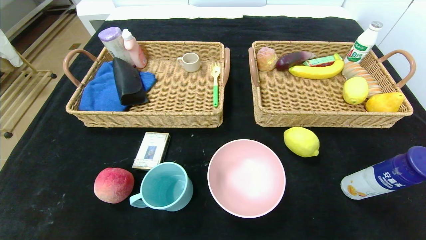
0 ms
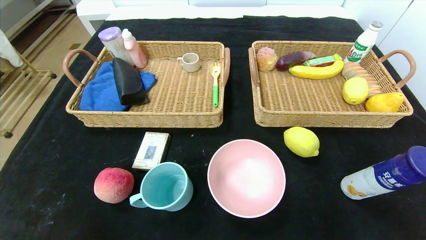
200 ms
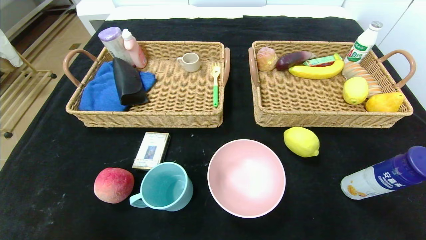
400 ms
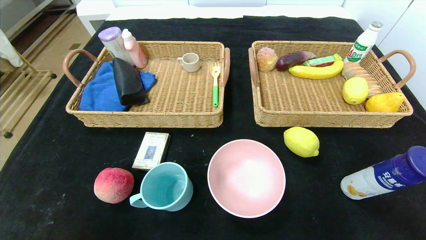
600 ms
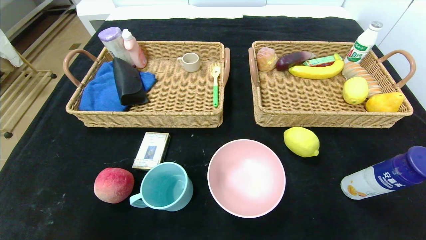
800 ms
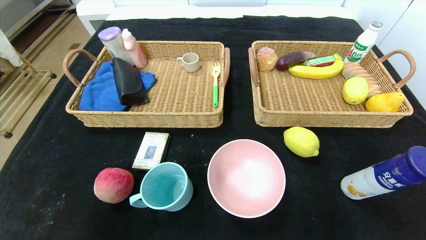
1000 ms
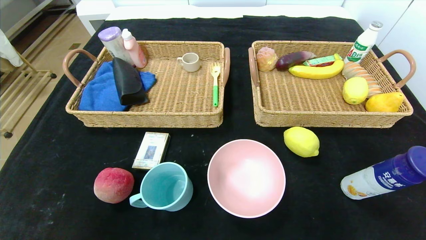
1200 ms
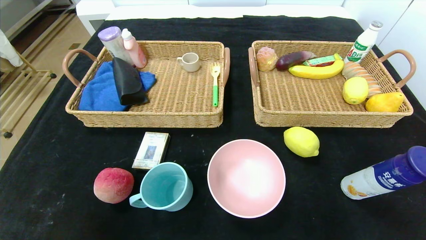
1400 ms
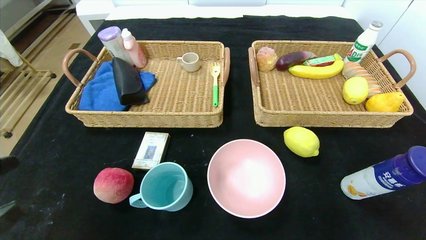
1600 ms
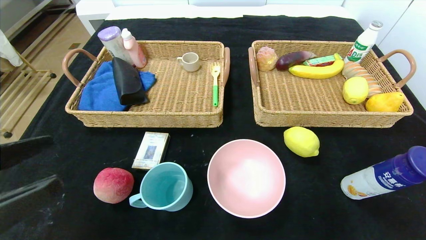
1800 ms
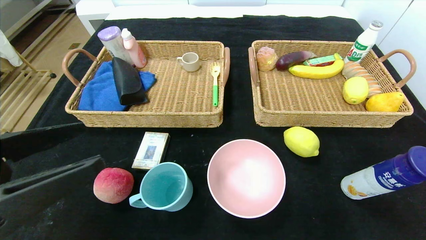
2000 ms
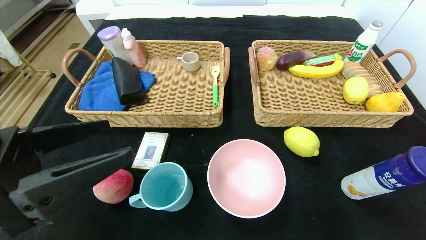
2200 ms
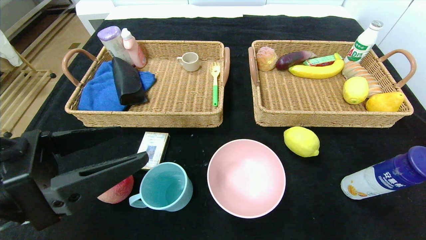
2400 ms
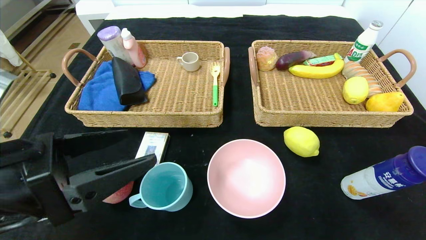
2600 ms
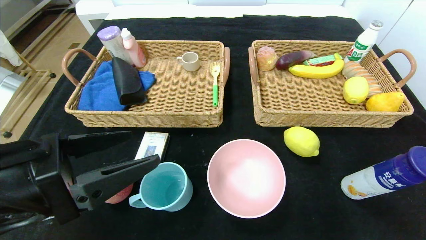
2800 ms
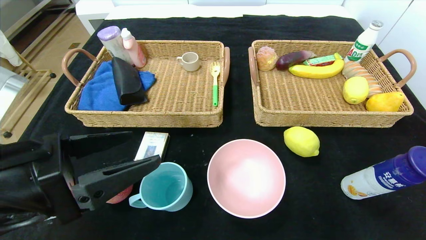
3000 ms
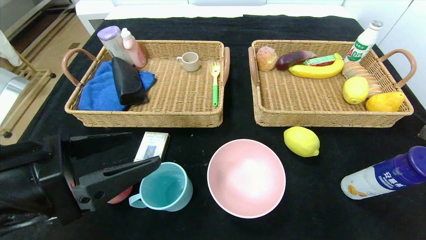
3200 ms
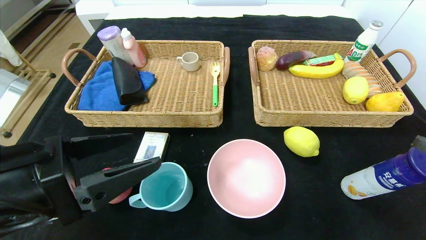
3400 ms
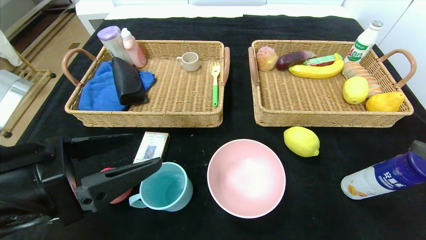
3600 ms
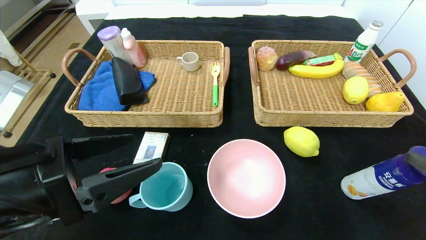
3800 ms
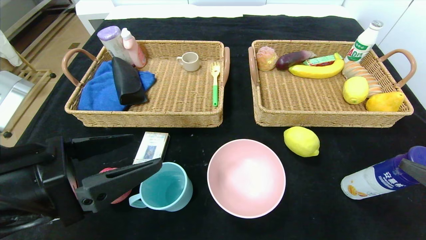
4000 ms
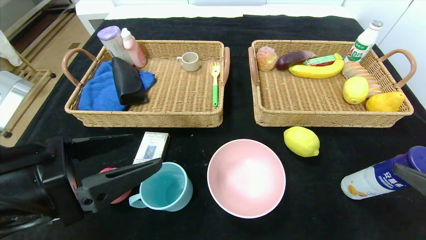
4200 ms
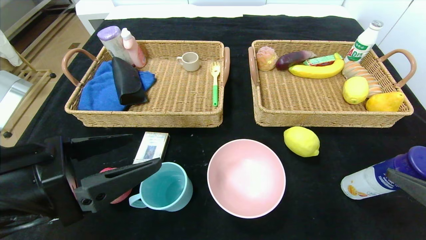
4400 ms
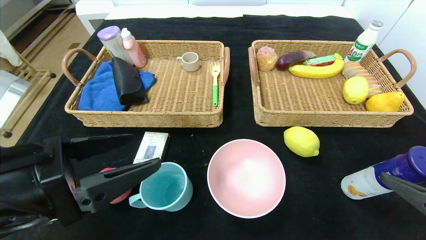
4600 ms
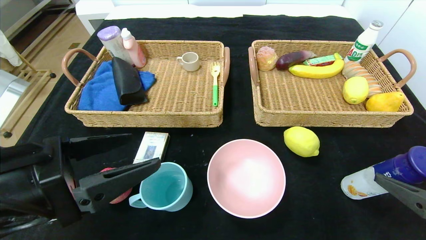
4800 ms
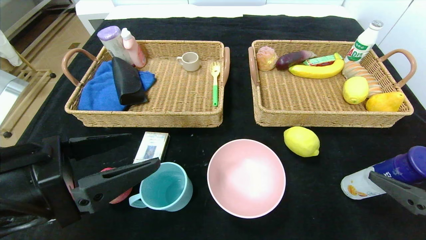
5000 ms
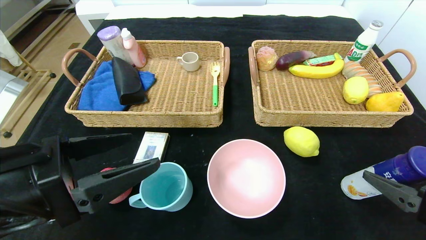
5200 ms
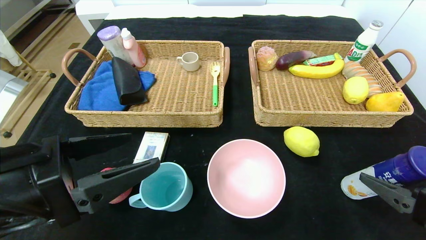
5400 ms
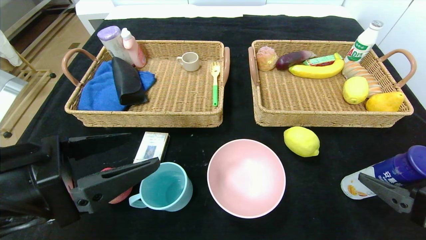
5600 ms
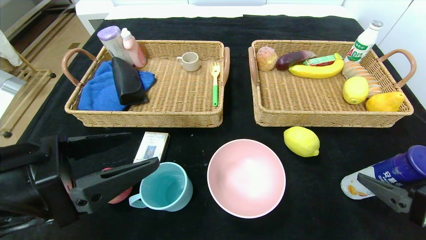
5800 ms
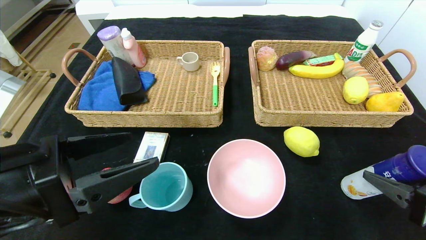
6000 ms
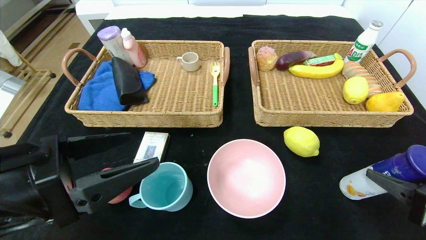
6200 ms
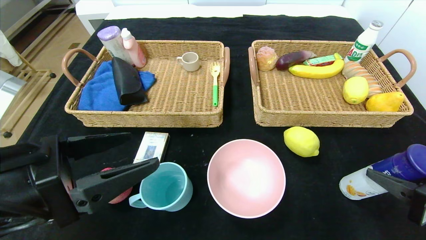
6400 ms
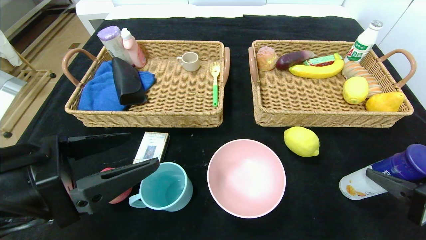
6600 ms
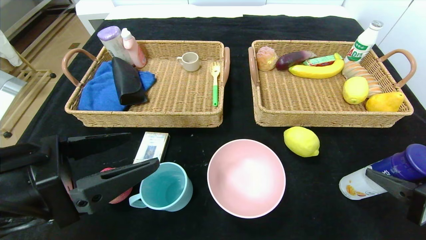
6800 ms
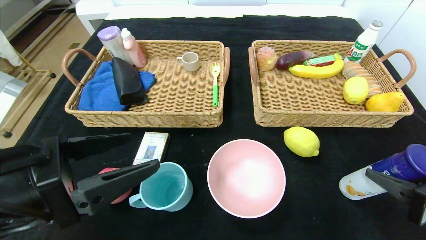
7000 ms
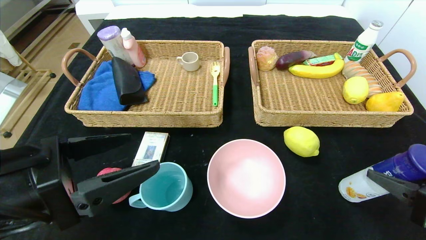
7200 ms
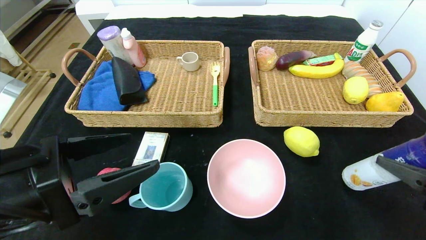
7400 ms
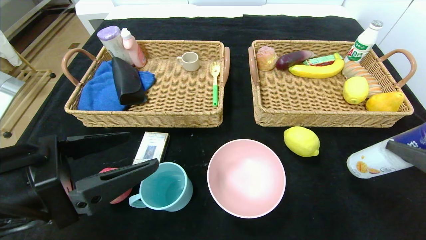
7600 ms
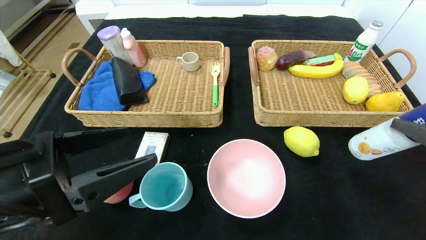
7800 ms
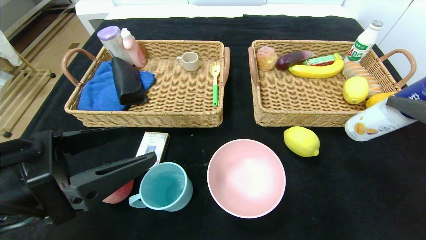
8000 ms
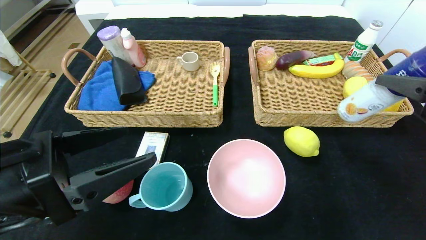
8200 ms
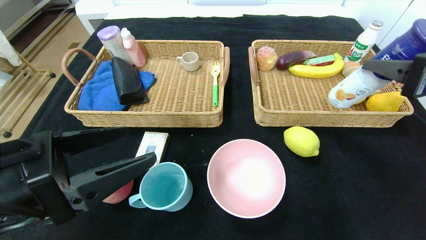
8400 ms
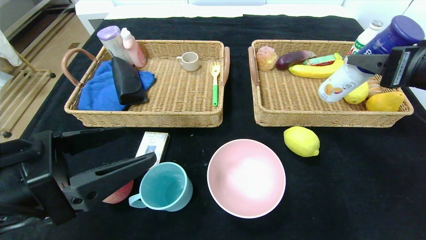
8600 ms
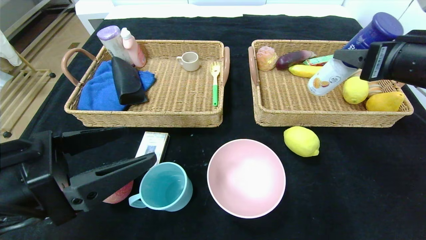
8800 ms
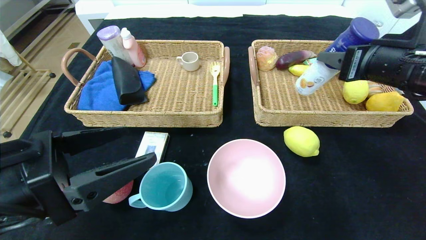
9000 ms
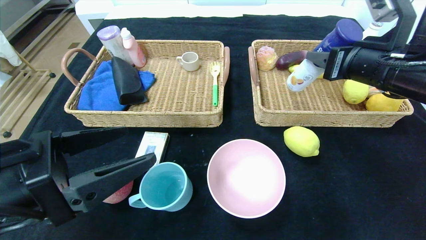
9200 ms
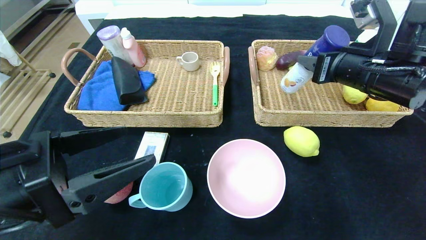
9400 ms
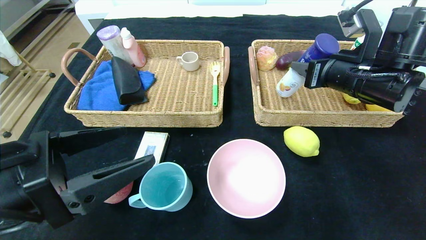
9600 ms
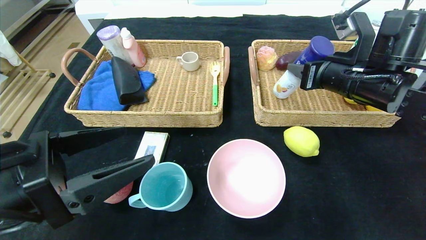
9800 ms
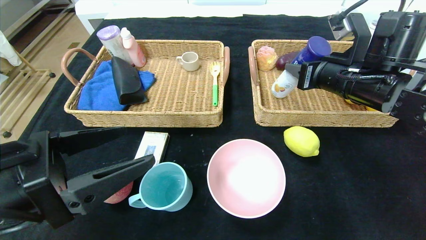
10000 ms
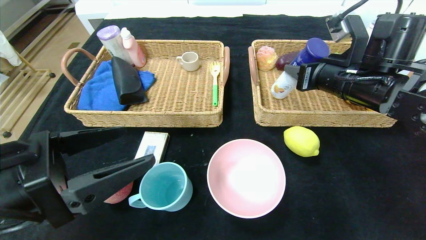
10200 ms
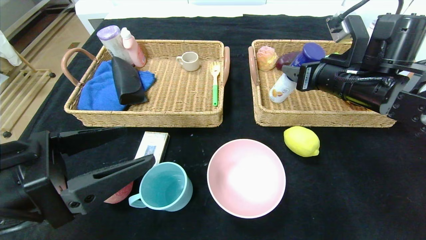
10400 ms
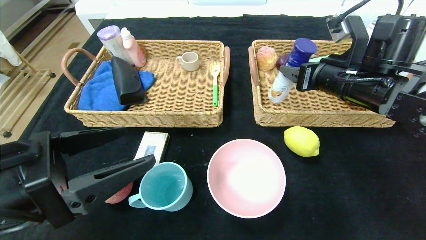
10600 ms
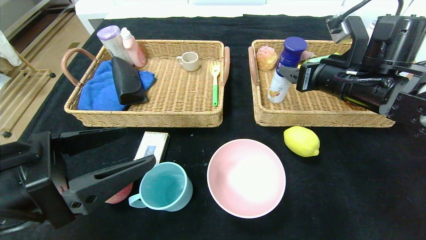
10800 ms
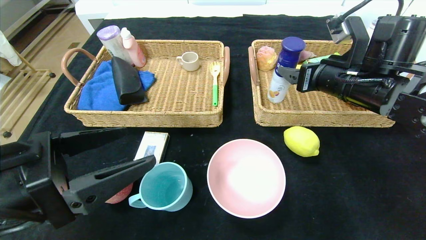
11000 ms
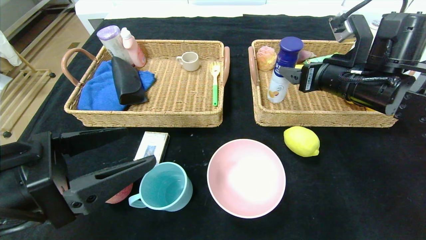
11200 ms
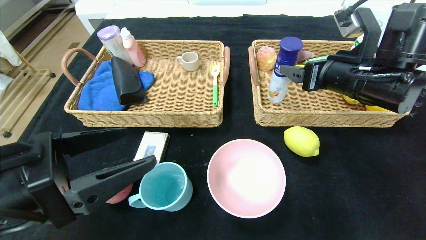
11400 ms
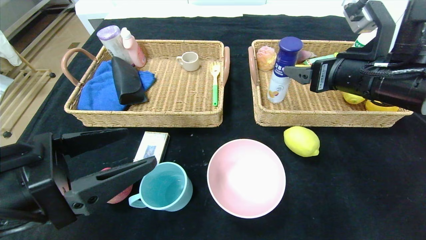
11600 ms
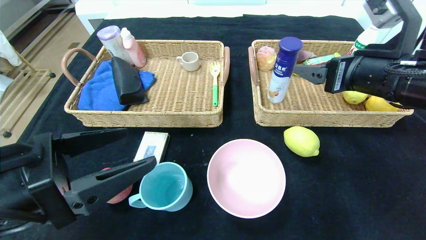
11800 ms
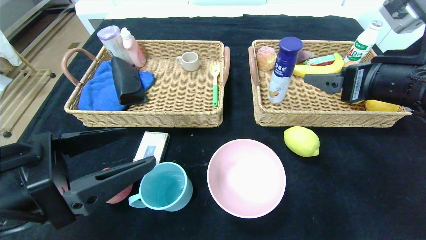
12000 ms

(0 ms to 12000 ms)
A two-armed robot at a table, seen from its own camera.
0 ms - 1600 ms: The left gripper goes some 20 cm upward.
1600 ms - 3000 ms: The right gripper moves forward, roughly 5 cm. The left gripper travels forward and to the right by some 10 cm.
3000 ms - 4400 ms: The right gripper travels downward by approximately 5 cm.
4400 ms - 6000 ms: The right gripper closes up.
6000 ms - 7600 ms: The right gripper heads upward, covering approximately 5 cm.
7600 ms - 9000 ms: The right gripper shifts about 20 cm forward, upward and to the left.
9000 ms - 10400 ms: The right gripper is displaced forward by roughly 5 cm, and opens up.
10400 ms - 12000 ms: The right gripper travels backward by roughly 10 cm, and opens up.

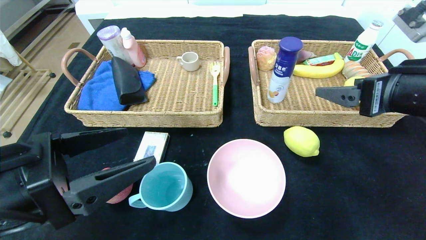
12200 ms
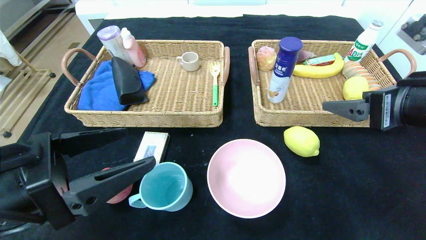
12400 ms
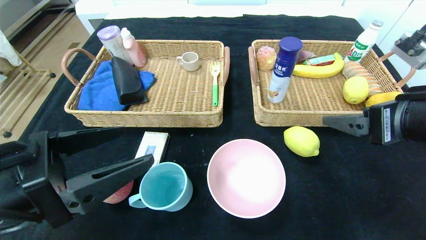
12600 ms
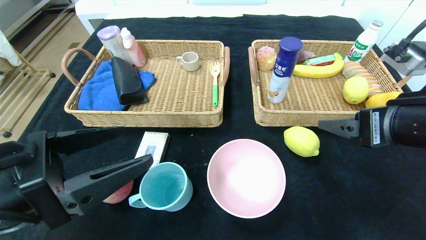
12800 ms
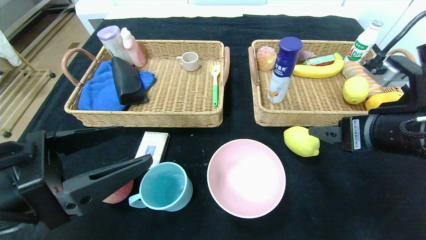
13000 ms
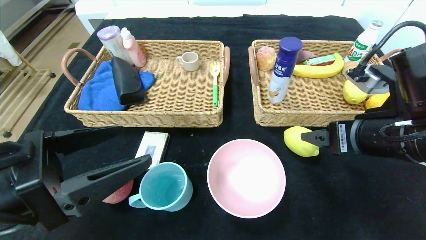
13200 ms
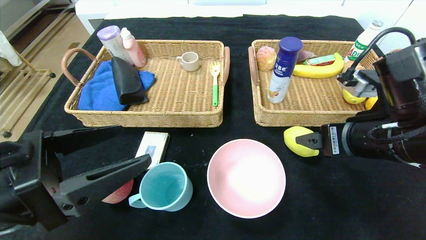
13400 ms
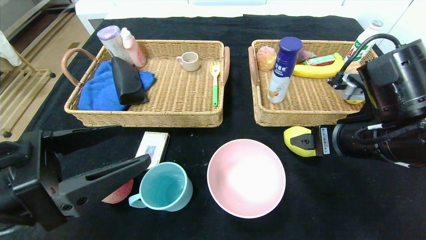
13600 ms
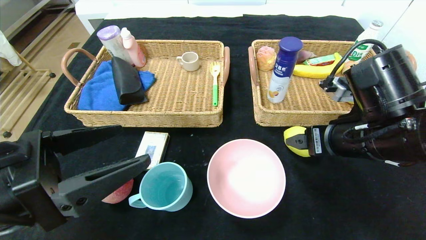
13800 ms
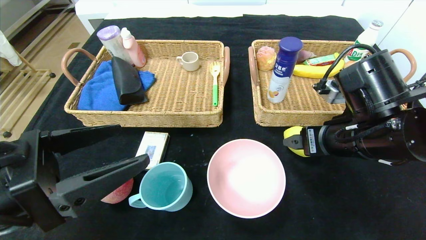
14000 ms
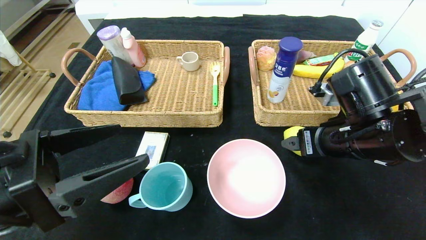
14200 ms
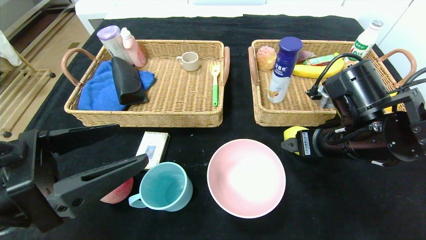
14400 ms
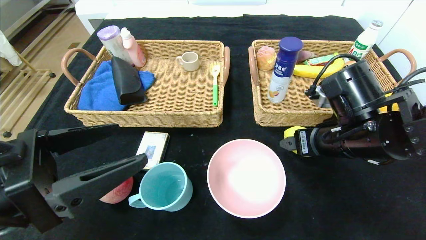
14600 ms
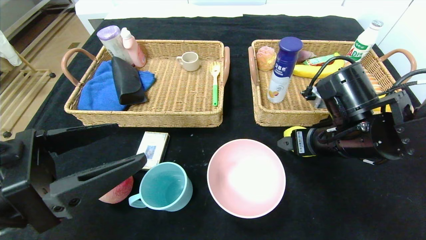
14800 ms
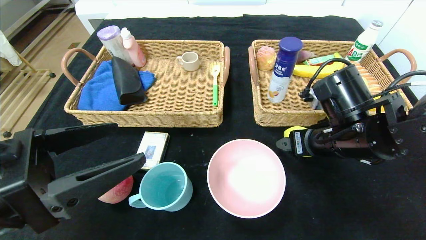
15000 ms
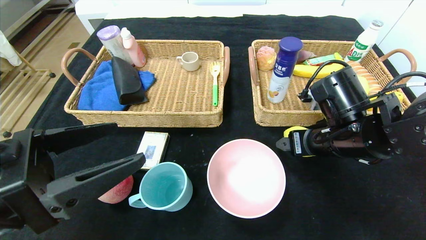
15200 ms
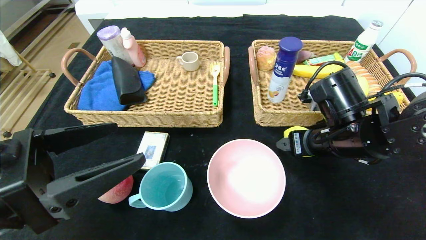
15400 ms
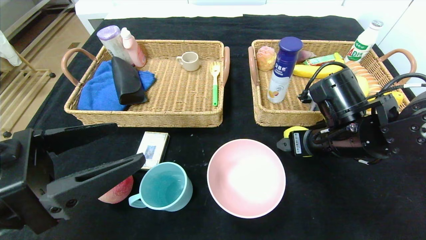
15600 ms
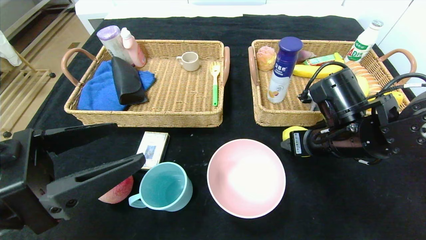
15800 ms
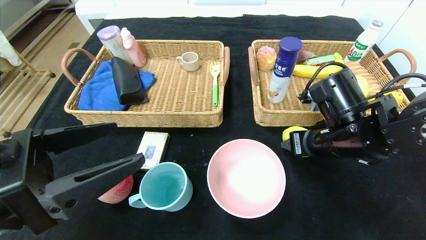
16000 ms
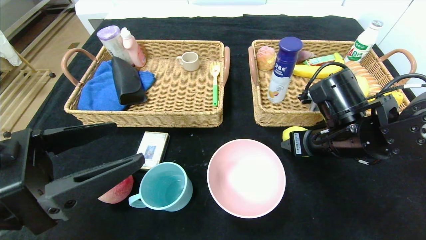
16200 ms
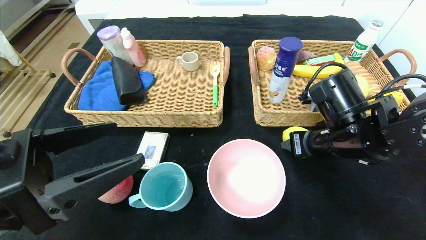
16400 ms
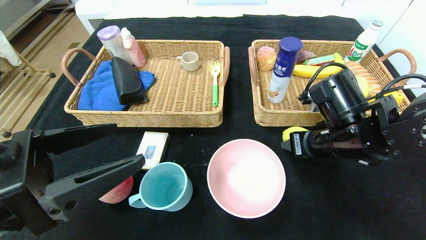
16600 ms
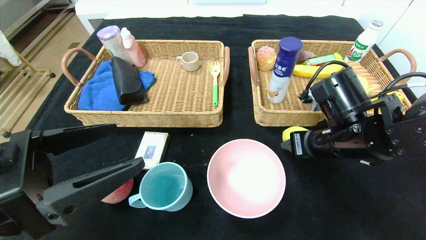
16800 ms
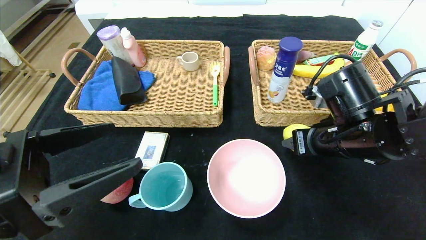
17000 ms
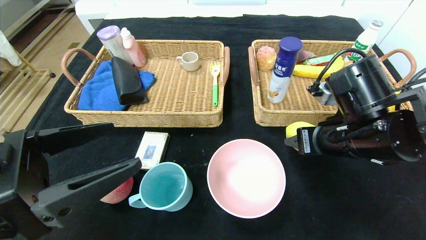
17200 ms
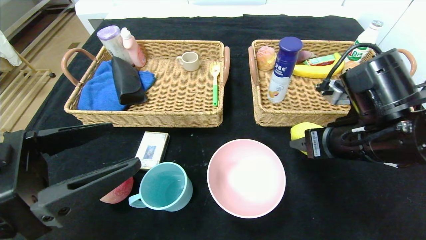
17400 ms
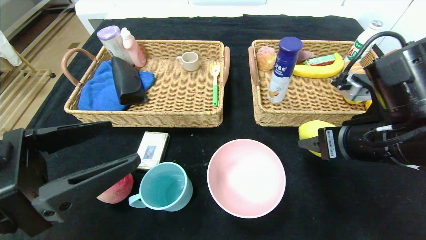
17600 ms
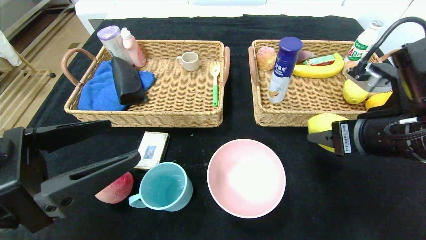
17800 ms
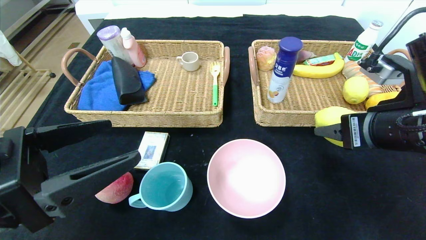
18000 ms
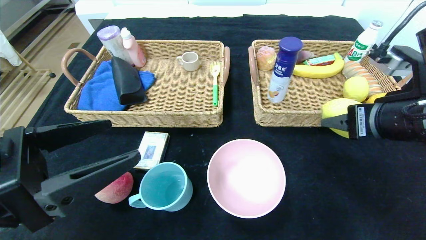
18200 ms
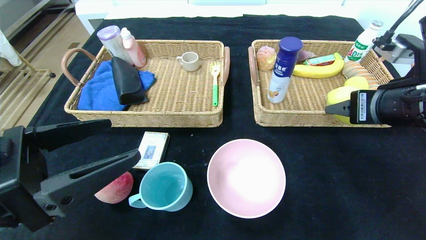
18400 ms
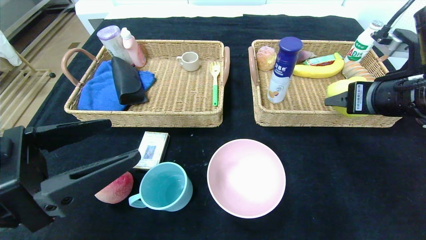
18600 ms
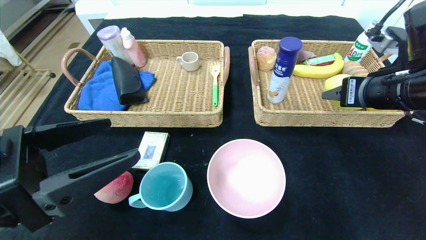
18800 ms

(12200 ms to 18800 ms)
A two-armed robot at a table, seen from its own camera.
12200 ms - 13800 ms: The right gripper goes about 10 cm downward and to the left.
13800 ms - 15400 ms: The grippers move only a little.
15400 ms - 17200 ms: The right gripper closes its fingers.
17200 ms - 18800 ms: The right gripper moves to the right and upward, some 10 cm.
